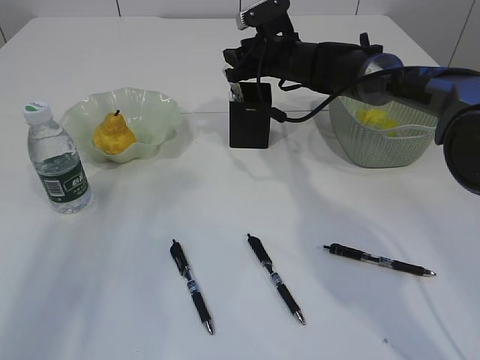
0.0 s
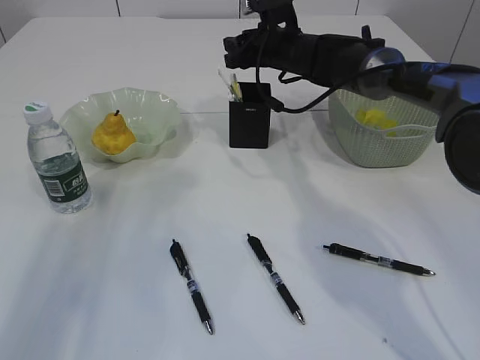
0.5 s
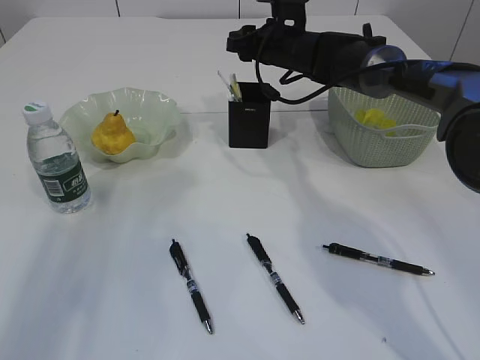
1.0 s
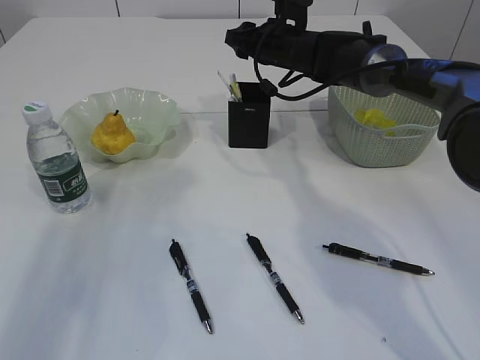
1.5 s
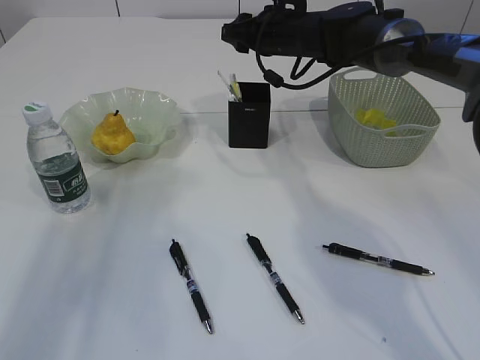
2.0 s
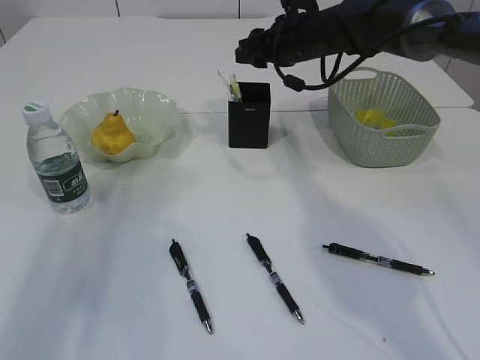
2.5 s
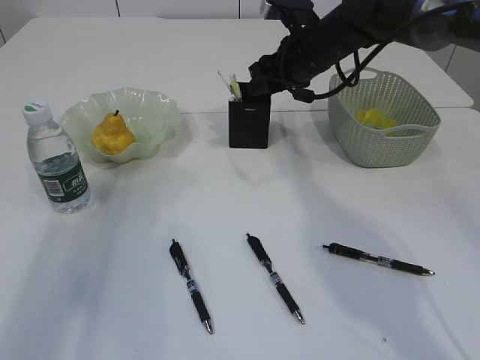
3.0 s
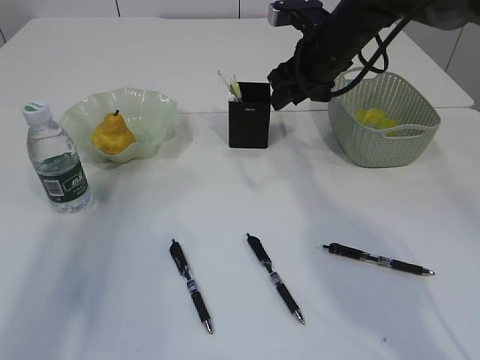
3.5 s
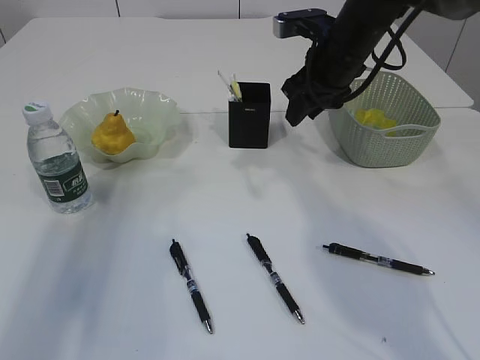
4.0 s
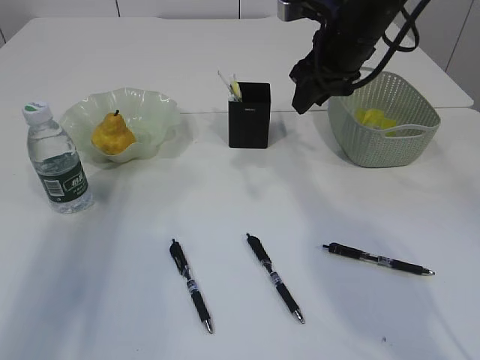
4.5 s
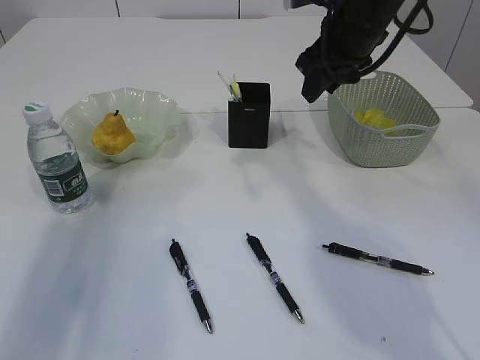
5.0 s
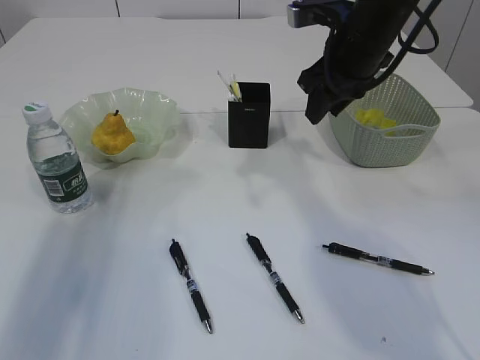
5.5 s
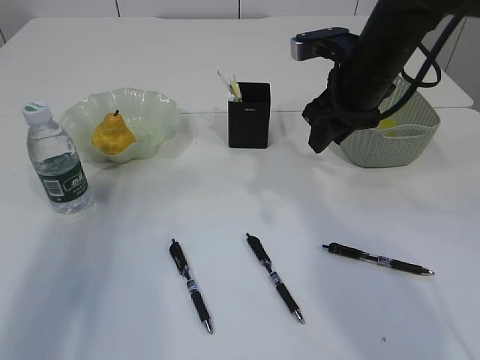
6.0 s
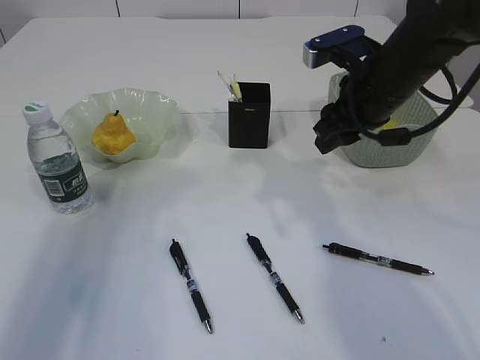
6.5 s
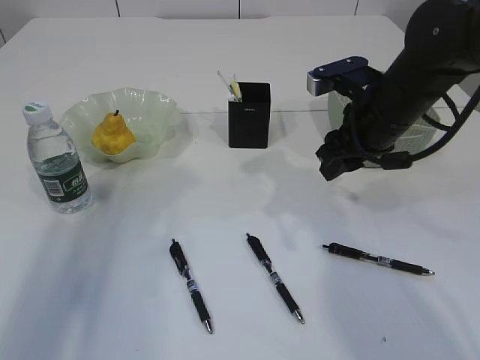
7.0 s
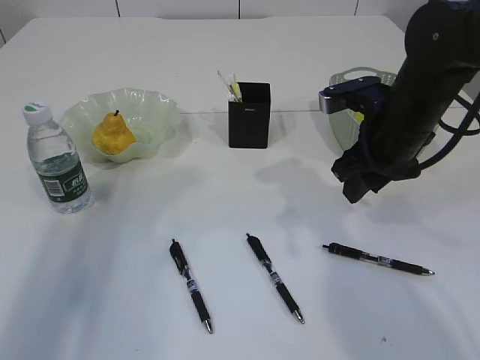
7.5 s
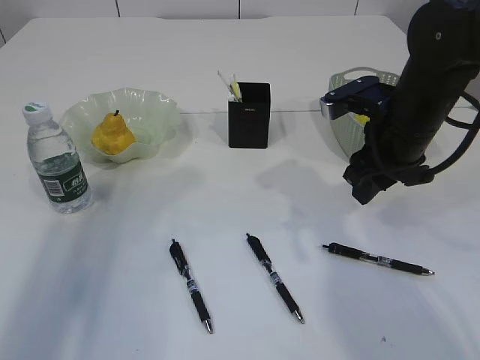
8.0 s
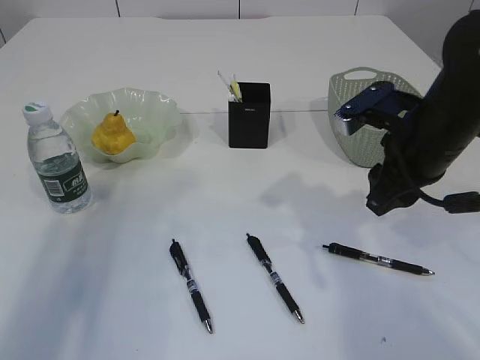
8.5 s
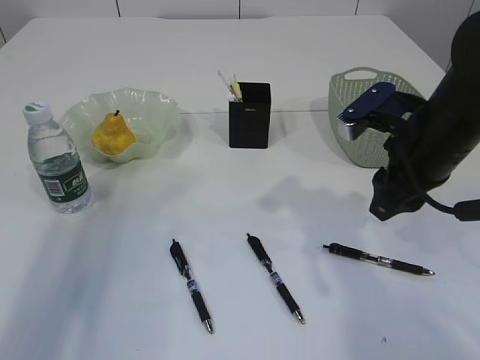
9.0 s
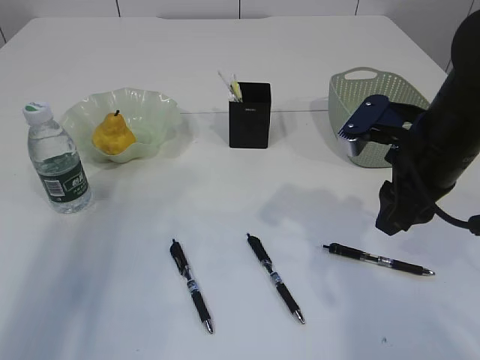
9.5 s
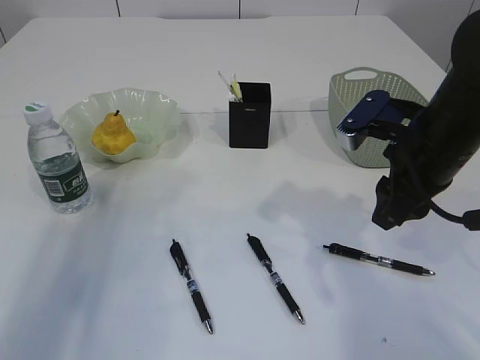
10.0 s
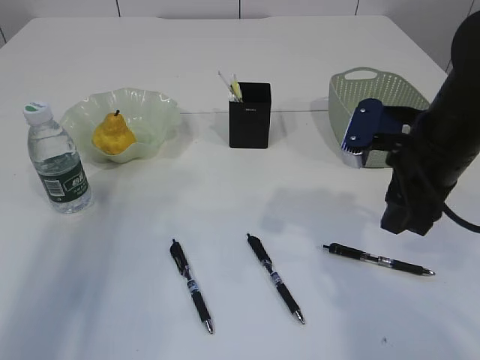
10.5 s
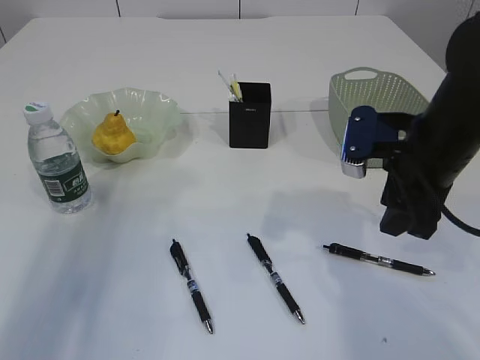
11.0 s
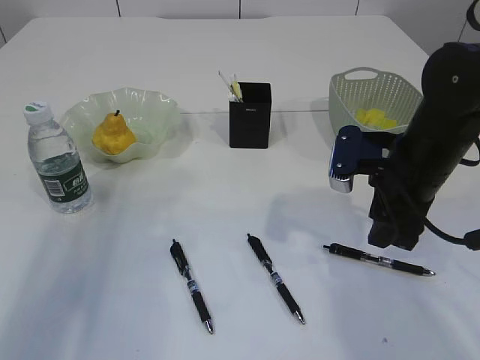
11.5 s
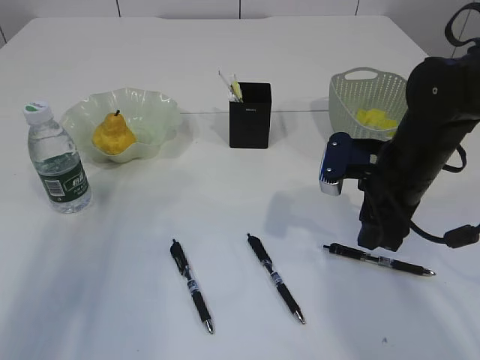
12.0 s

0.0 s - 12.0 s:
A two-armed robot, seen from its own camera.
Step, 0.0 s - 5.0 s: Place the ruler into the pen holder.
2.0 s - 4.0 s: The right gripper moves backward and to the right, approximately 10 cm.
4.0 s - 6.0 s: The right gripper travels backward by some 5 cm.
6.0 s - 8.0 s: The right gripper moves backward, some 5 cm.
8.0 s - 10.0 s: The grippers stay close to where they were, moving slightly.
10.0 s - 12.0 s: The right gripper is displaced downward by some 5 cm.

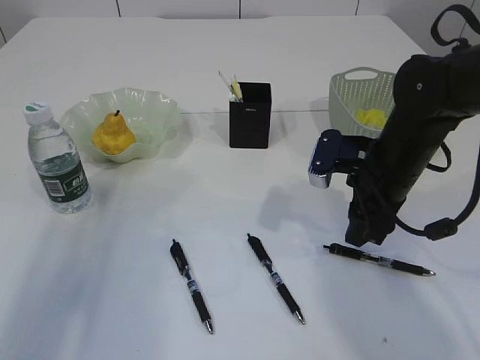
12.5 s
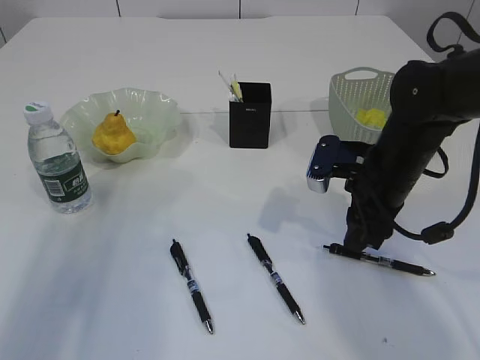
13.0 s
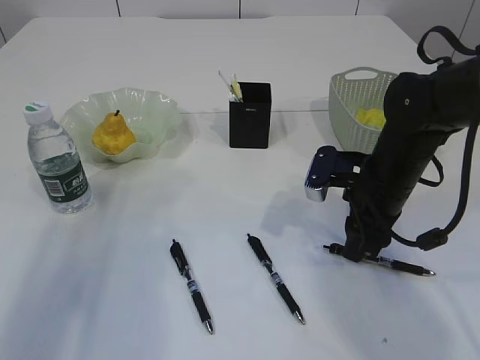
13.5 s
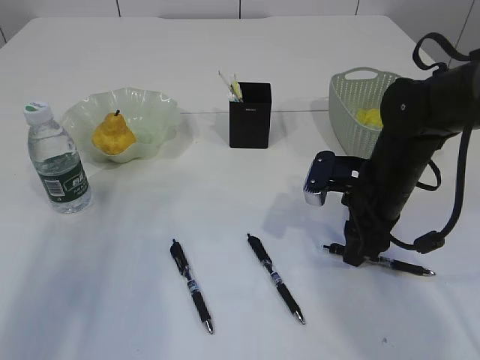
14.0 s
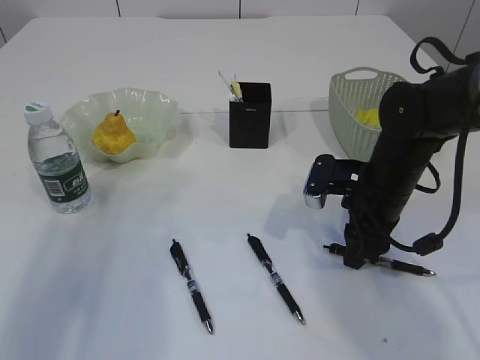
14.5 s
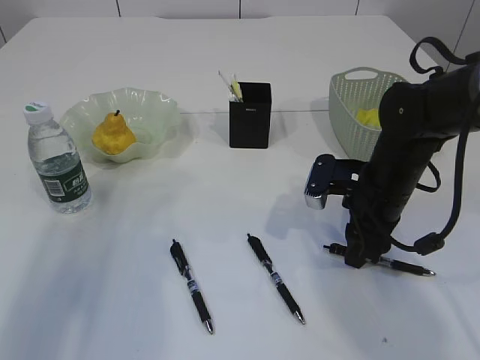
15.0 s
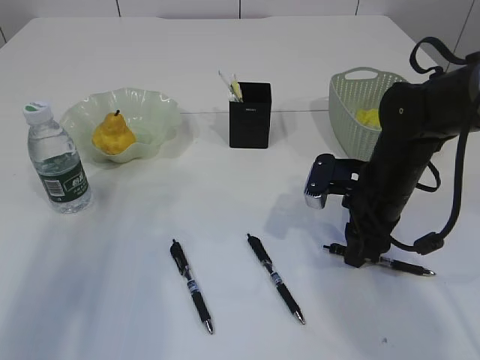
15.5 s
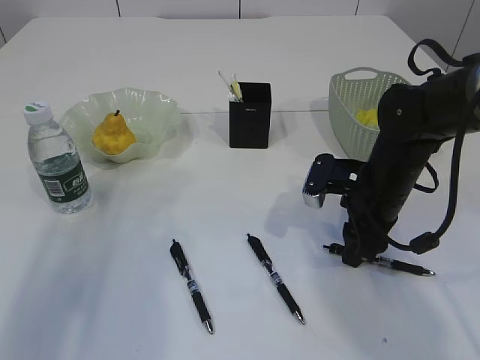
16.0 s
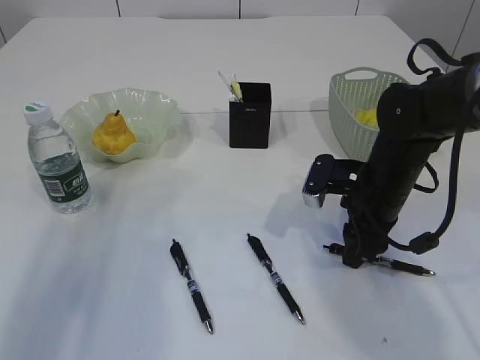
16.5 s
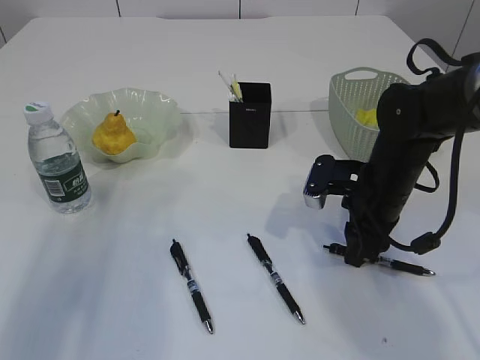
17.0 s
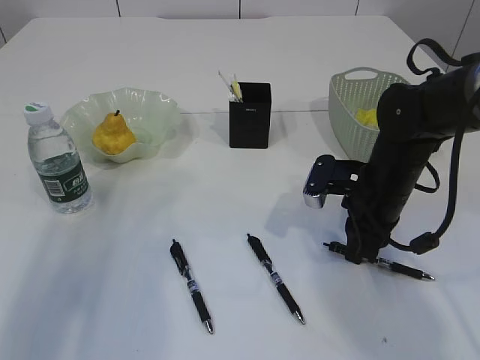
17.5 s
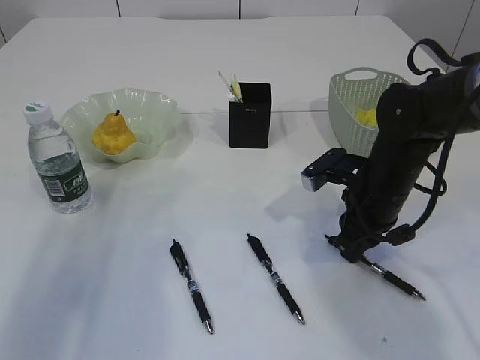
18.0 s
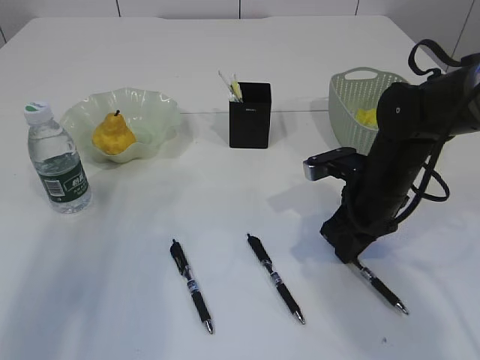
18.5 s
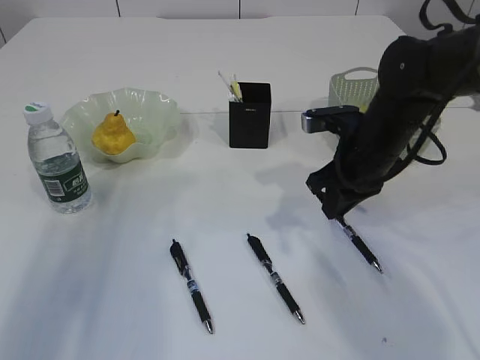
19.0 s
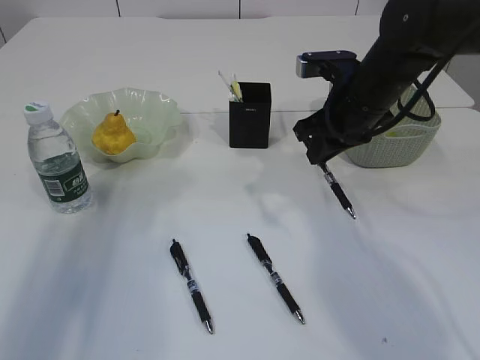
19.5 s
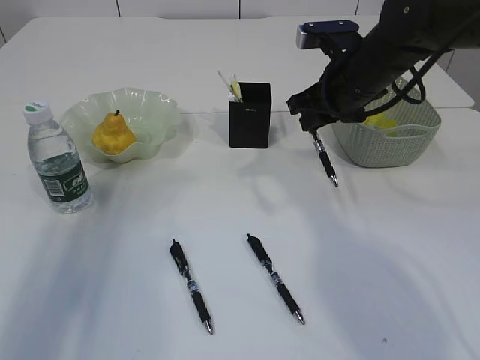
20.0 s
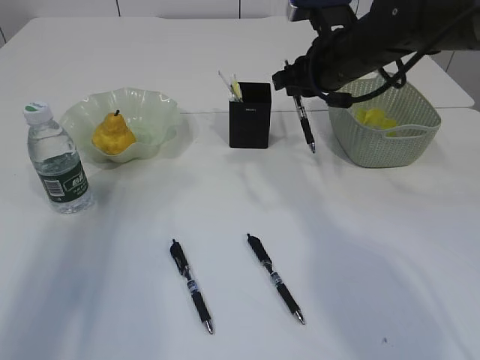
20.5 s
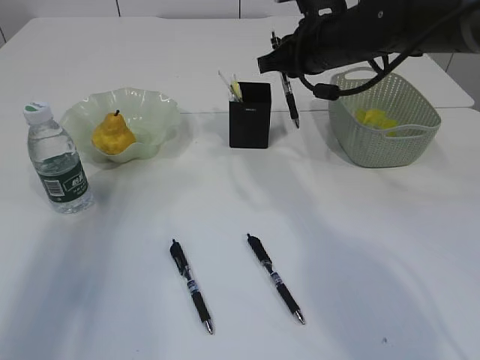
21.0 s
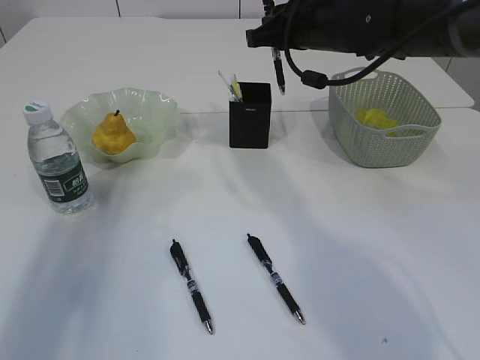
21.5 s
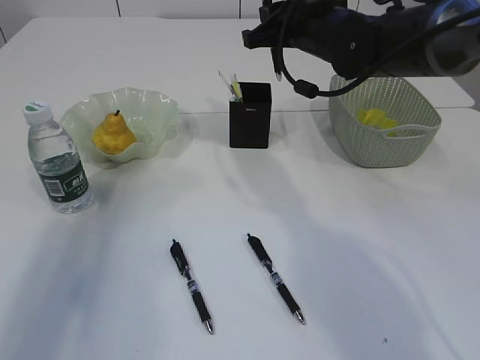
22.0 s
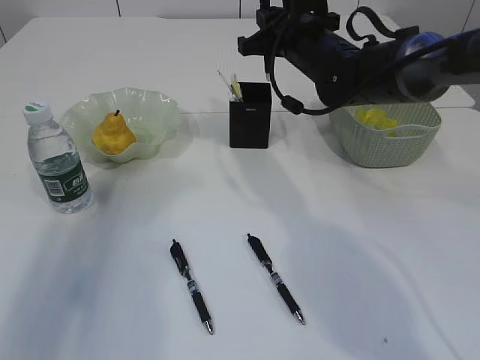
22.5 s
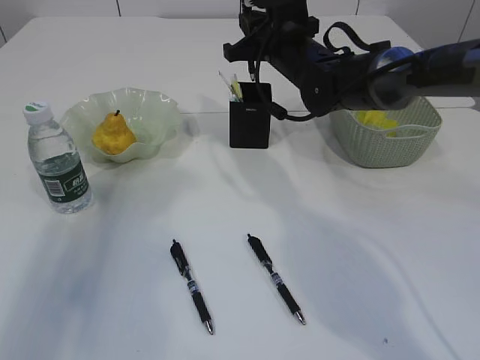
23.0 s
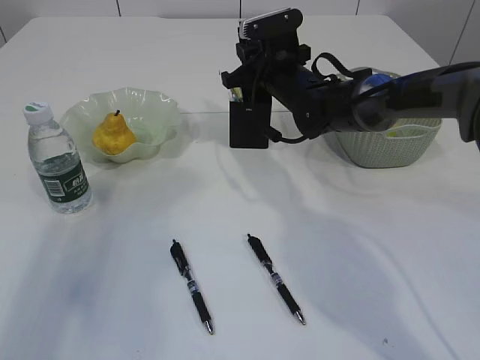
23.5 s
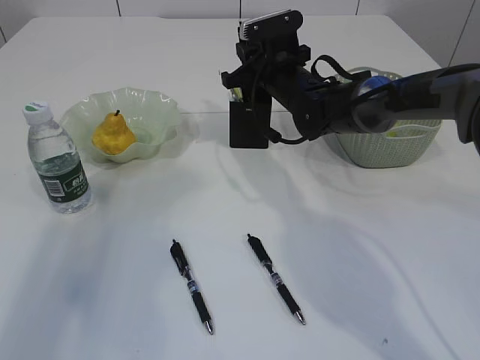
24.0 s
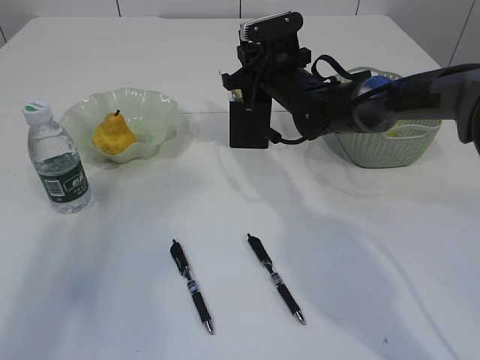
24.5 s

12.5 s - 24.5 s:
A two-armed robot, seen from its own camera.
Step, 12.5 s - 19.0 s: Pick up the pen with right arm.
12.5 s - 14.5 s: The grippers stay close to where they were, moving slightly.
14.5 s - 16.5 s: The two grippers keep their place.
16.5 s - 18.5 s: The right gripper closes.
18.5 s - 20.5 s: The right gripper moves upward and forward, approximately 15 cm.
20.5 s - 22.5 s: The right gripper shifts by about 5 cm.
22.5 s - 24.5 s: The right gripper goes some 5 cm downward.

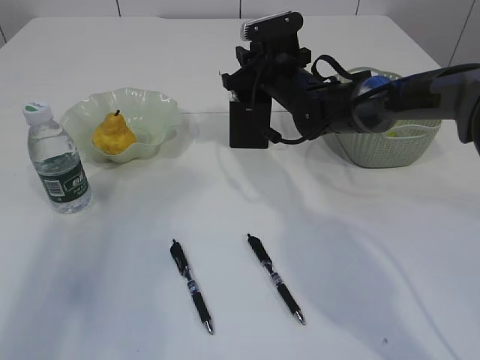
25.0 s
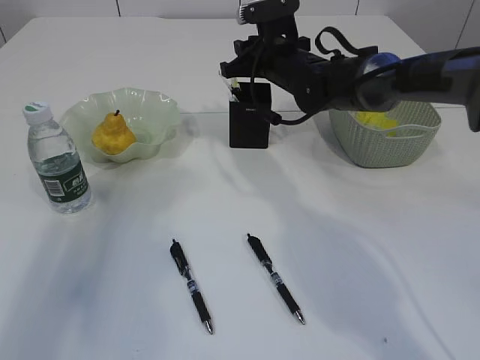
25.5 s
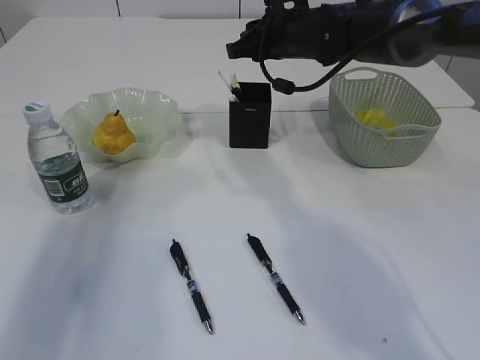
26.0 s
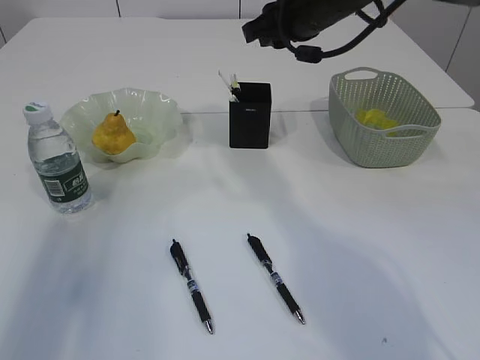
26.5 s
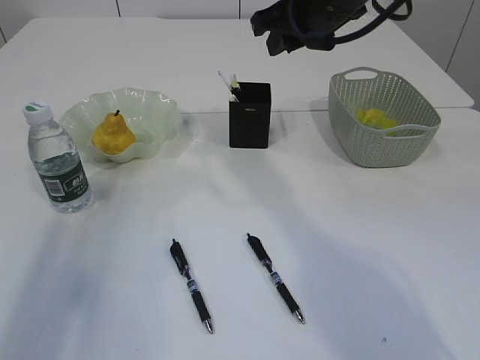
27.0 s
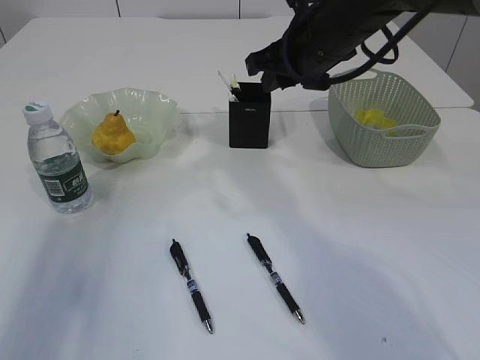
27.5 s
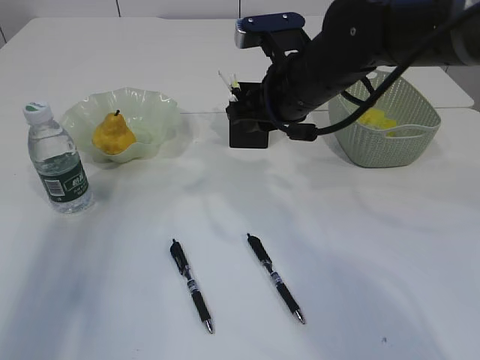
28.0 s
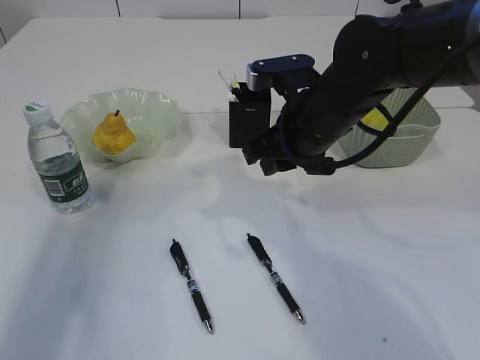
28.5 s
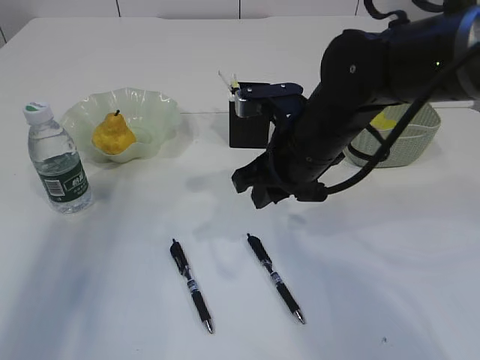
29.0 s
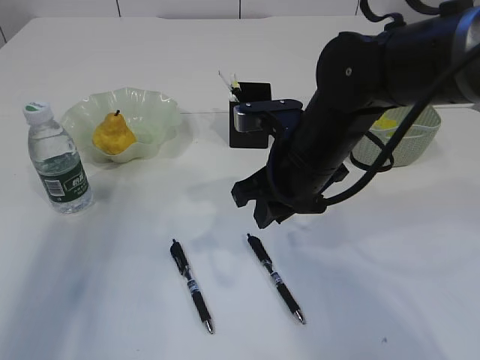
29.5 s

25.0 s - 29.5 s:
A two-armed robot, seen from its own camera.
Step, 25.0 s - 27.0 s: Place the pen into the pen holder.
25.0 s - 27.0 s: The right gripper travels upward and backward by roughly 15 cm.
27.0 s - 29.5 s: The right gripper goes about 15 cm downward and backward.
